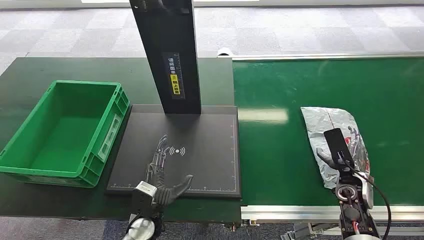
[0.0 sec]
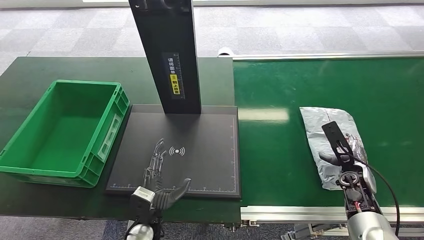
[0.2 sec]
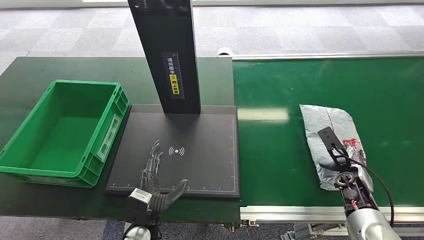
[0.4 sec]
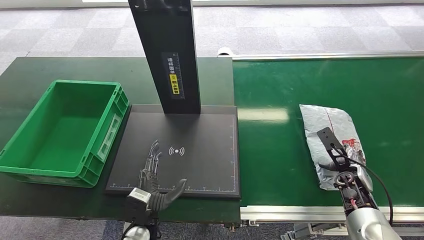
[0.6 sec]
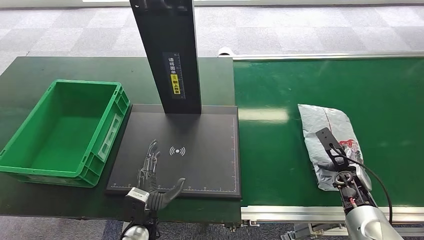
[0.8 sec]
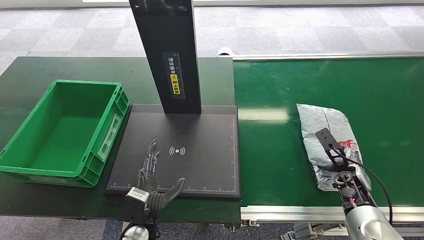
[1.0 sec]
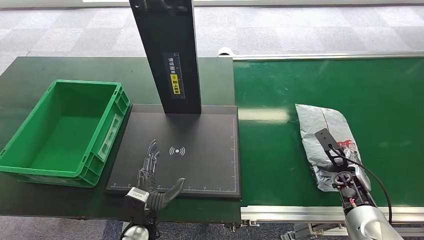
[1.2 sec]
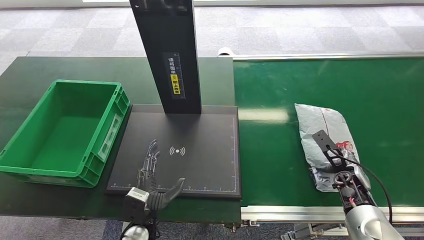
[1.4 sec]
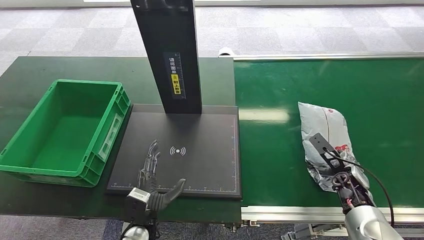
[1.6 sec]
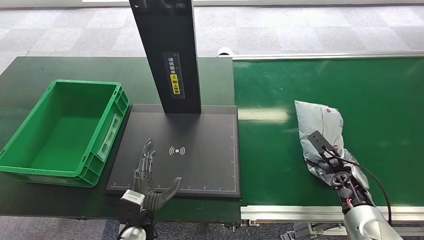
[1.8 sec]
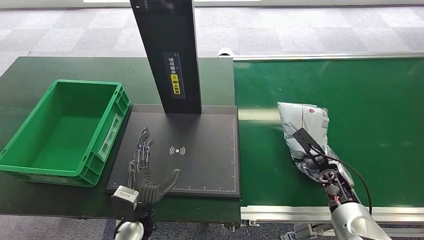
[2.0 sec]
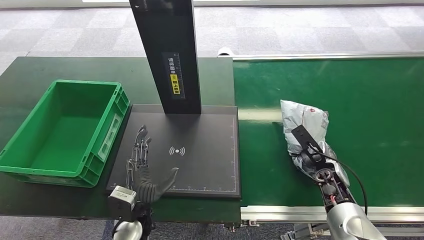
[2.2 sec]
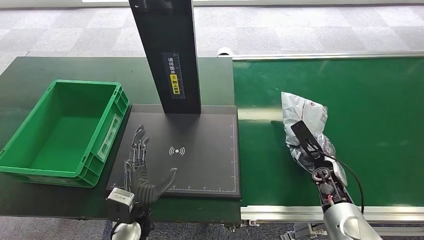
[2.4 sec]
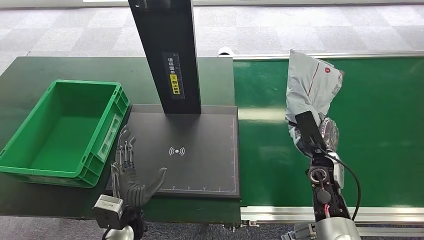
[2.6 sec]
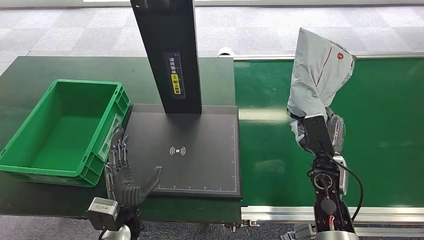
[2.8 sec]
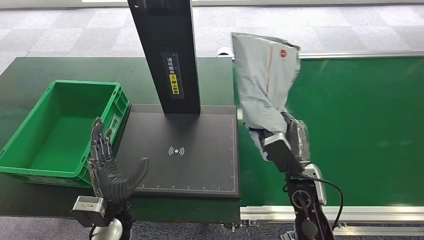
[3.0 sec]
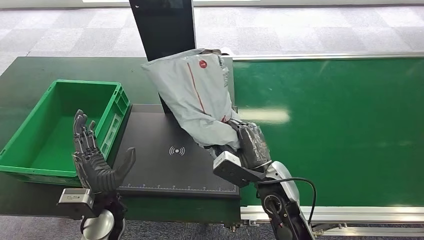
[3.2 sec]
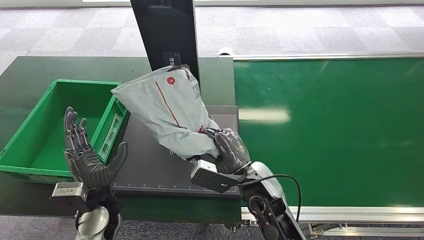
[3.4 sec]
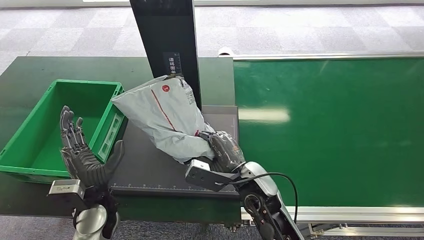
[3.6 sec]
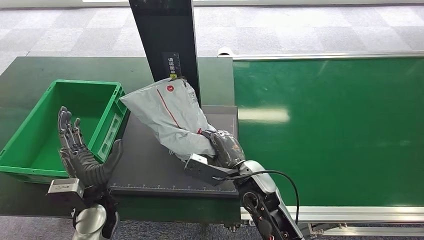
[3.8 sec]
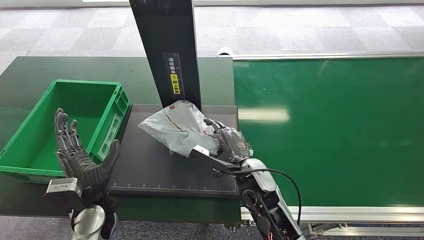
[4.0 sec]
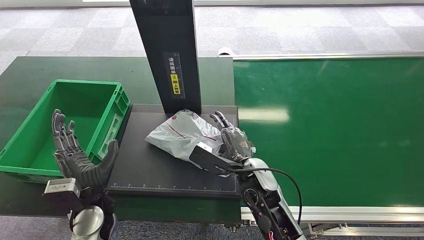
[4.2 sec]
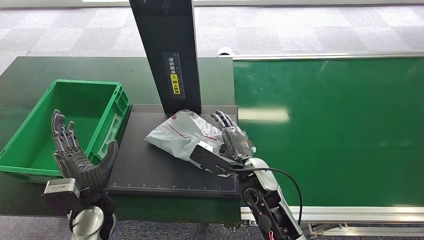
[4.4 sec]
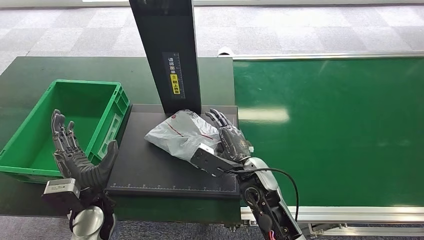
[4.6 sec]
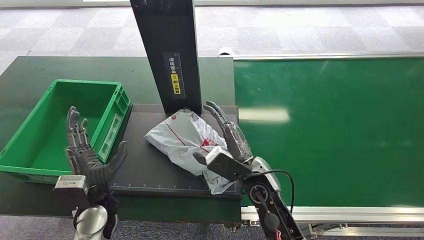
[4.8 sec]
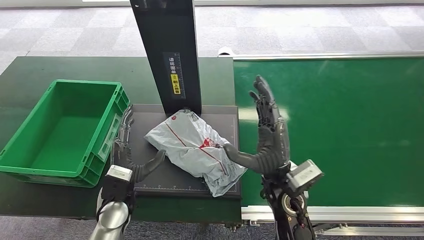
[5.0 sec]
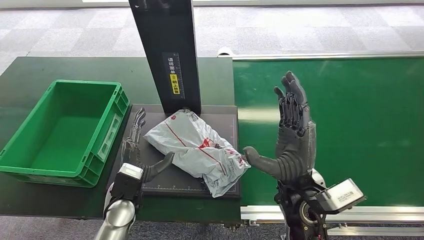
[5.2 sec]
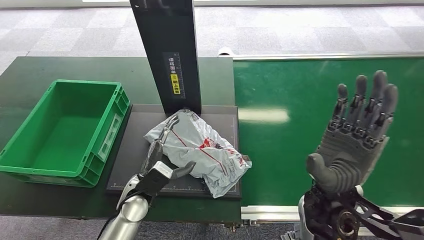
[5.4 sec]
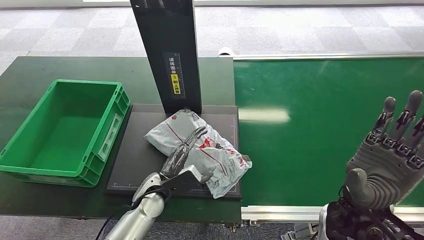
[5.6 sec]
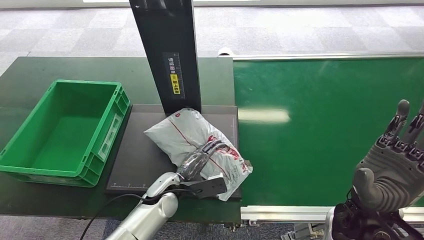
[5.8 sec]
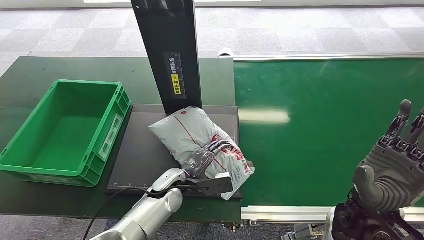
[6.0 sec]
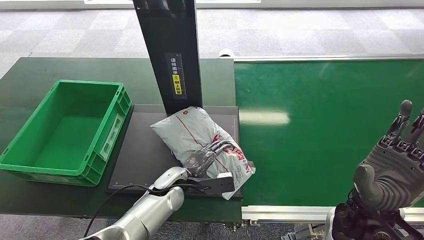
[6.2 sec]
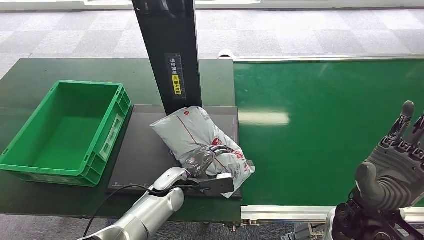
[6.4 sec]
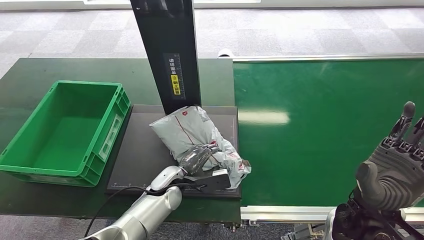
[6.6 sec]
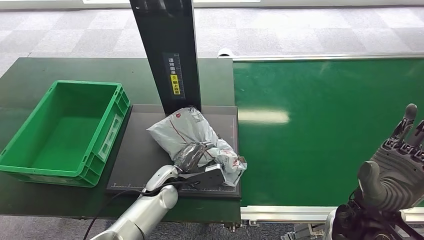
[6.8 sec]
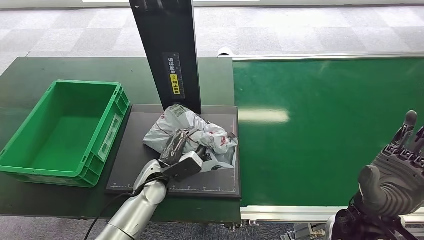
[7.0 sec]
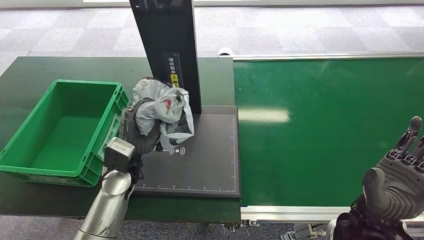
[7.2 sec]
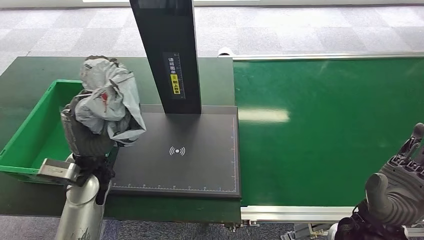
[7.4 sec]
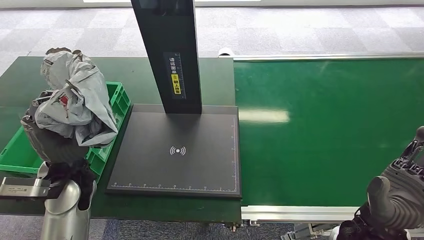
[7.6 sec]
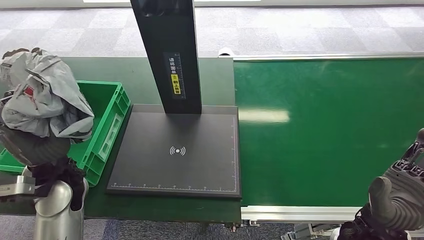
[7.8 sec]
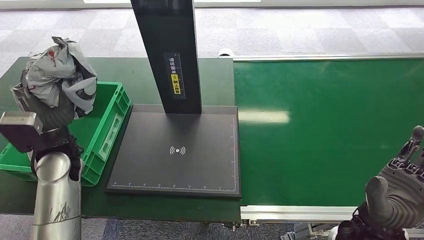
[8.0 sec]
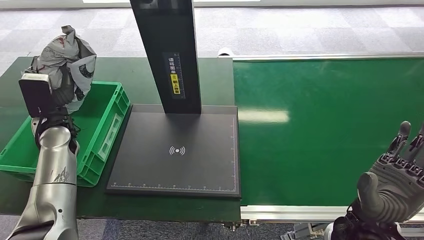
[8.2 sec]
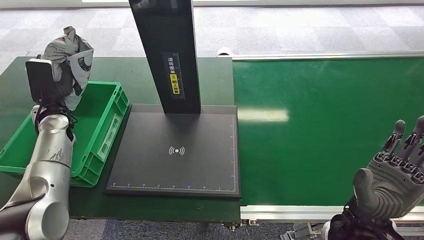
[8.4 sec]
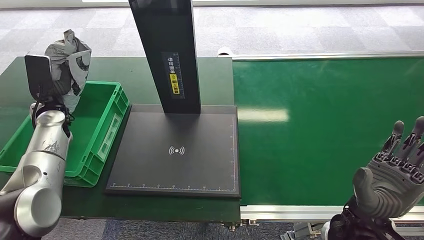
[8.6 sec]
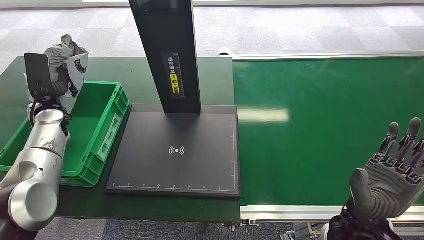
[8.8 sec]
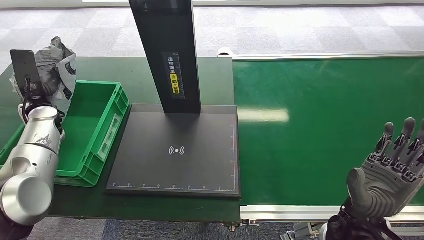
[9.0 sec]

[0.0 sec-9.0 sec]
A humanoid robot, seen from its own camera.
Step, 0.0 sec to 2.4 sec: Pick up the package from the conveyor belt.
Step, 2.6 sec to 5.0 sec: Place the package onto the inbound machine.
Step, 5.2 sec to 7.4 sec: Pick up the package from the inbound machine.
Step, 7.6 sec to 9.0 sec: Place the package into the parcel locker.
4.4 sec to 6.0 sec: The right hand travels to the right, upward and backward by approximately 20 cm; the left hand travels to the right, forward and downward by approximately 15 cm.
6.0 sec to 7.6 sec: The left hand moves upward and to the left, about 25 cm.

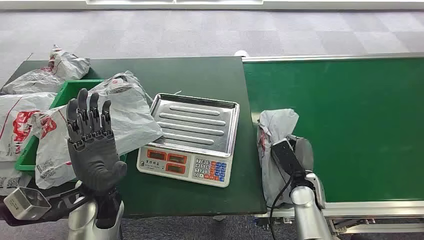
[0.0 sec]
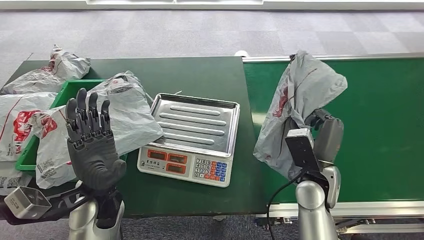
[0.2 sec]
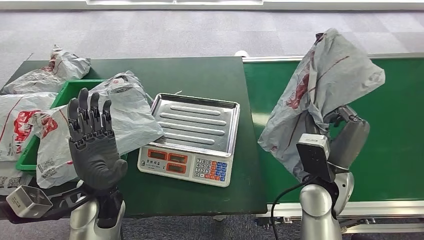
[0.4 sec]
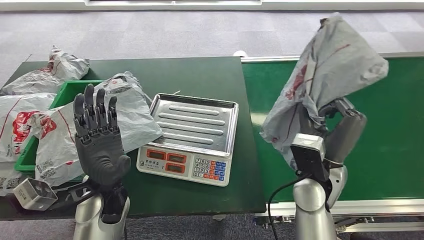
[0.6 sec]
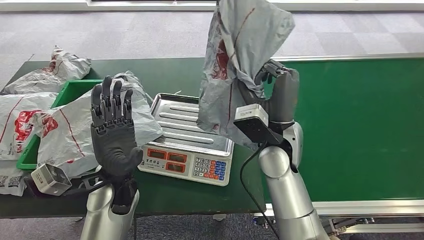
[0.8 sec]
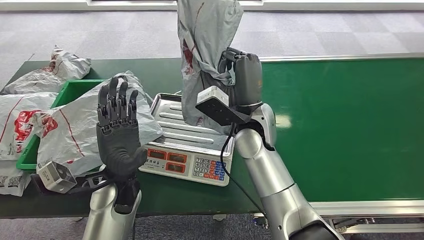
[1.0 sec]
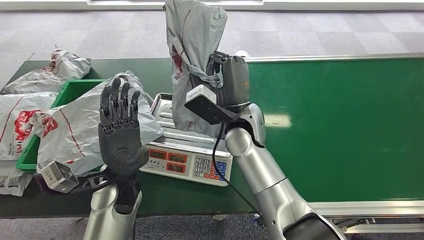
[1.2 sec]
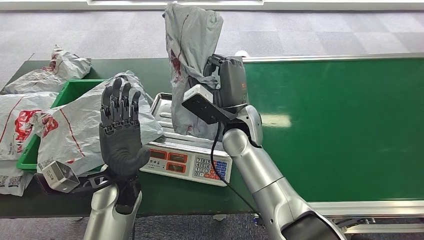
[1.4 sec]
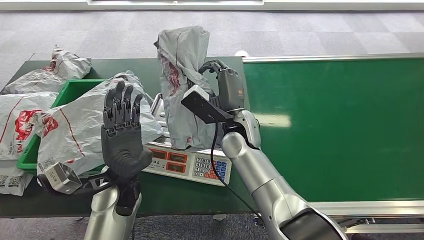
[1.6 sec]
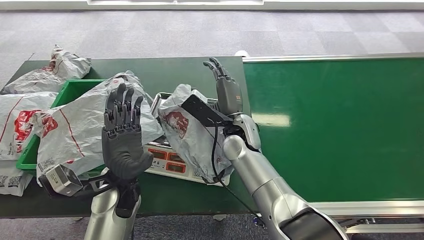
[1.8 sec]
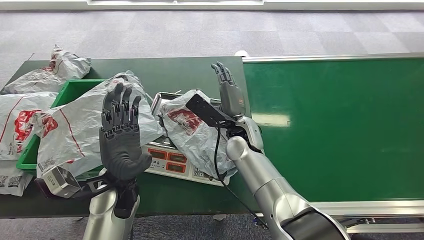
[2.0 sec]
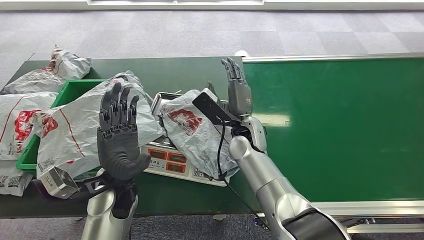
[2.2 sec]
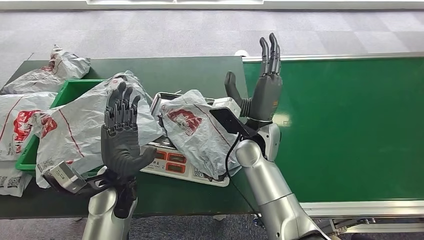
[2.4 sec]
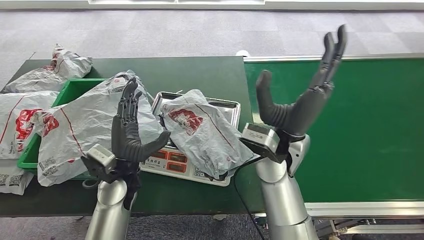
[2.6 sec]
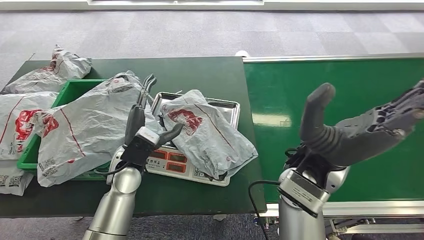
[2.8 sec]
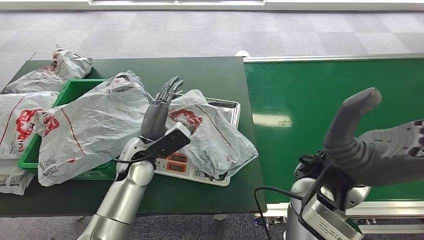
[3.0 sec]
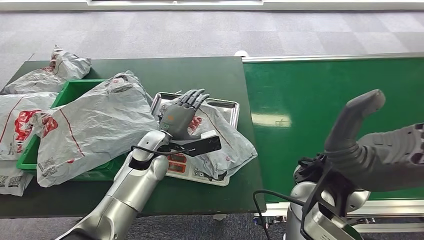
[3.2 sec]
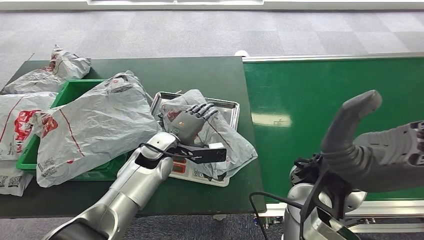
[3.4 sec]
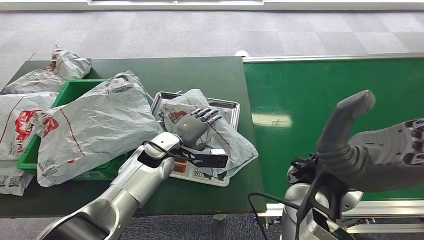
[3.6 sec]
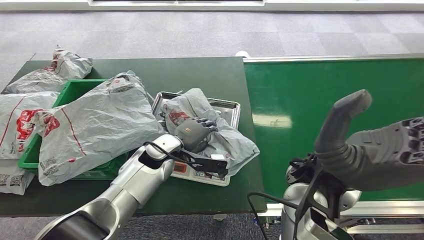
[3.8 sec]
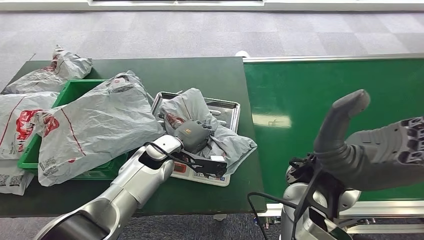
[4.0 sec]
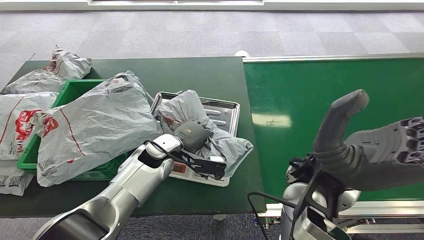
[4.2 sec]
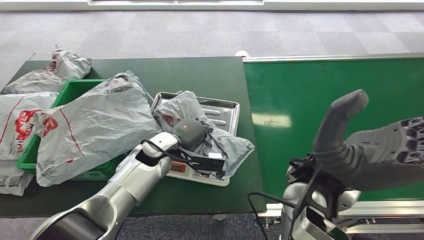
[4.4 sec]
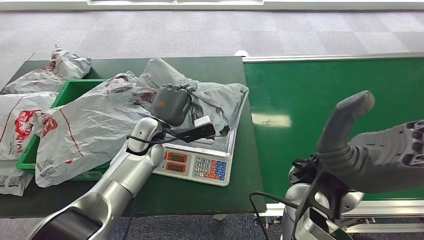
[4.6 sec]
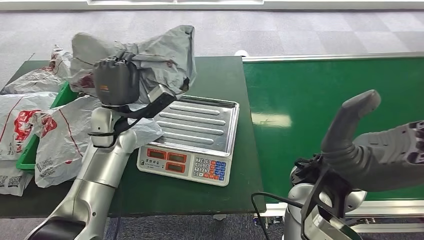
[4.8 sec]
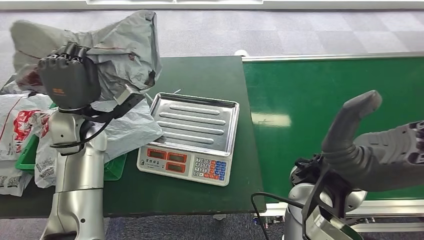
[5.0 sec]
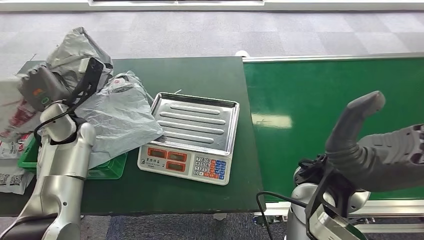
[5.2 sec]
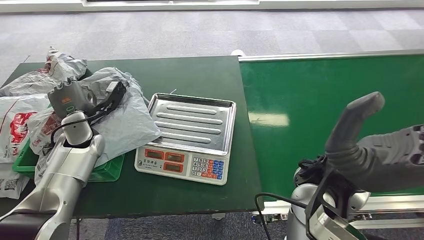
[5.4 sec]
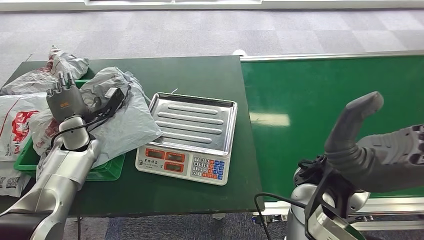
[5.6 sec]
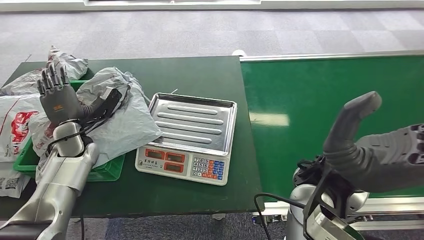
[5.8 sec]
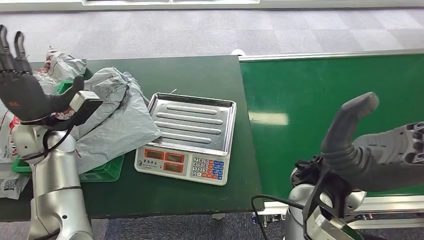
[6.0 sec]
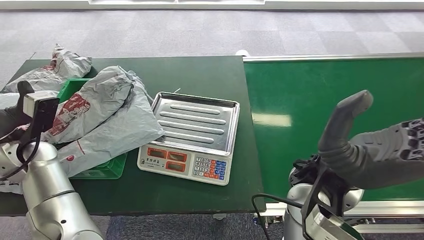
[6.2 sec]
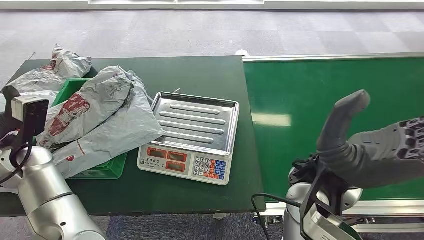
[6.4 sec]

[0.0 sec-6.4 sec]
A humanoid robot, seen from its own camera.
Step, 0.0 sec to 1.0 sec: Pick up the package from the conveyor belt.
Step, 1.4 sec to 3.0 sec: Place the package onto the inbound machine.
Step, 3.4 sec to 5.0 sec: Pick up the package from the inbound machine.
Step, 5.2 sec to 6.2 sec: Place the package into the parcel locker.
